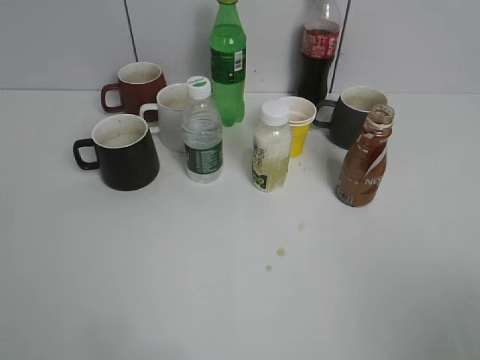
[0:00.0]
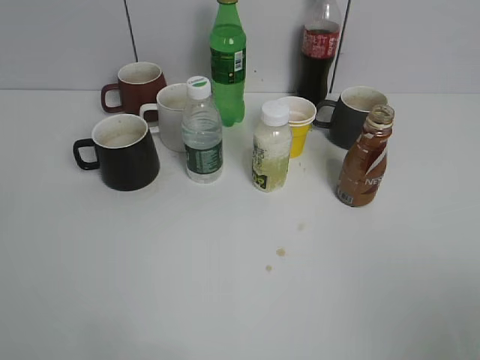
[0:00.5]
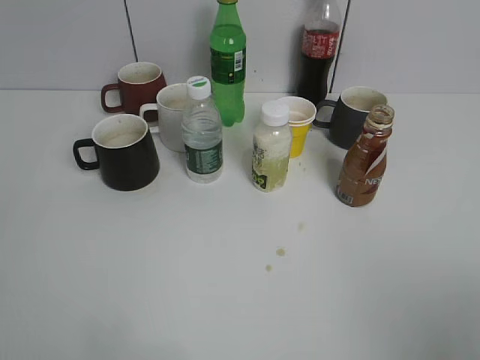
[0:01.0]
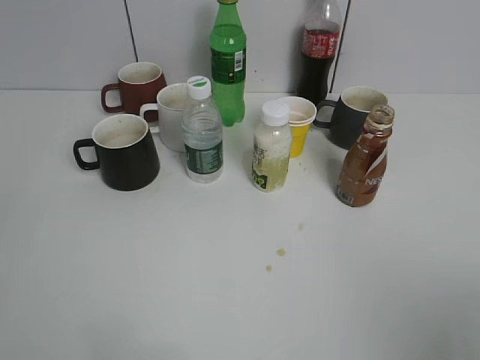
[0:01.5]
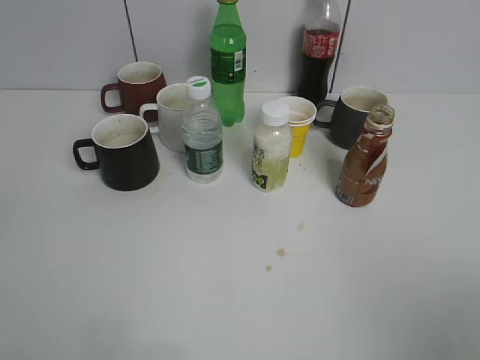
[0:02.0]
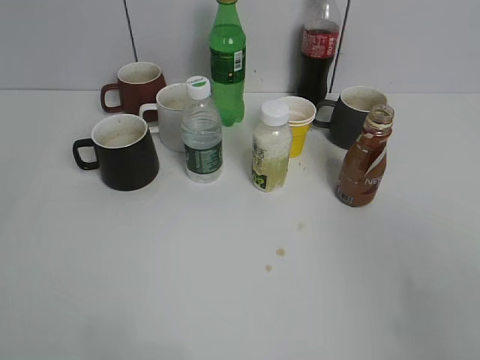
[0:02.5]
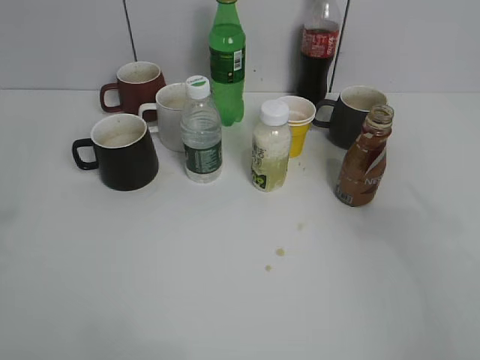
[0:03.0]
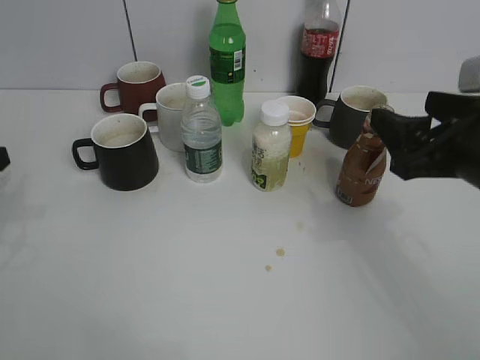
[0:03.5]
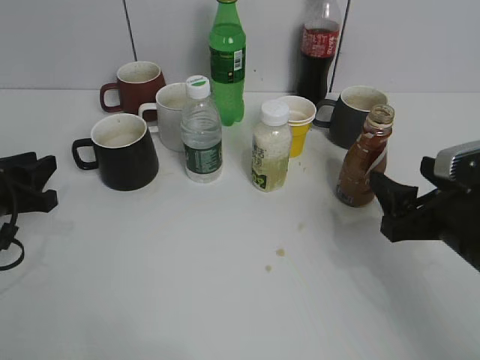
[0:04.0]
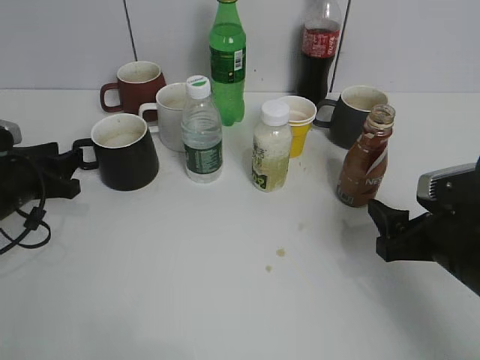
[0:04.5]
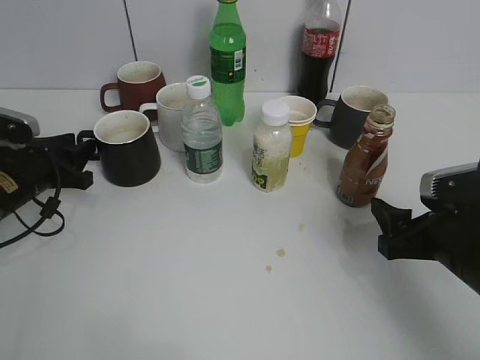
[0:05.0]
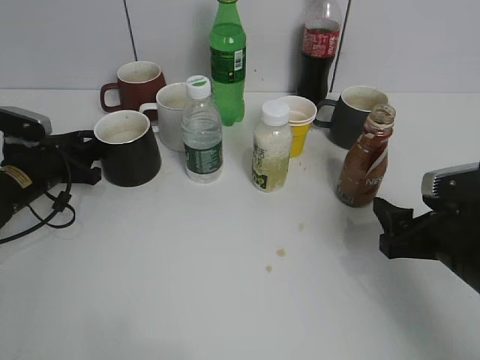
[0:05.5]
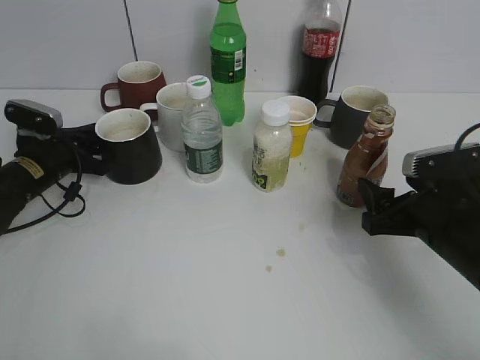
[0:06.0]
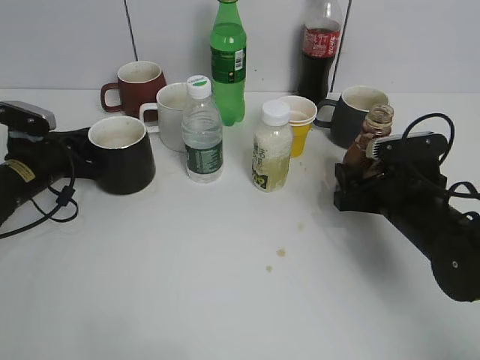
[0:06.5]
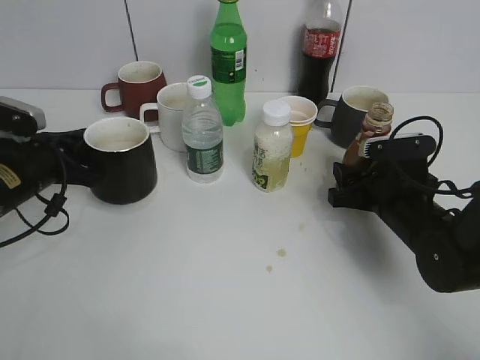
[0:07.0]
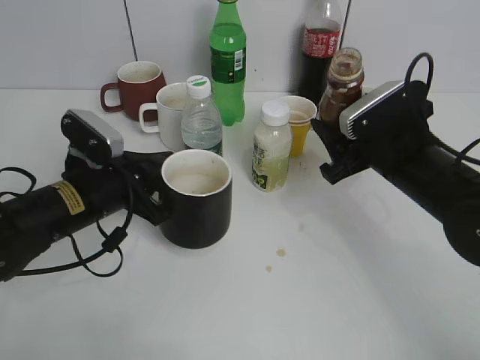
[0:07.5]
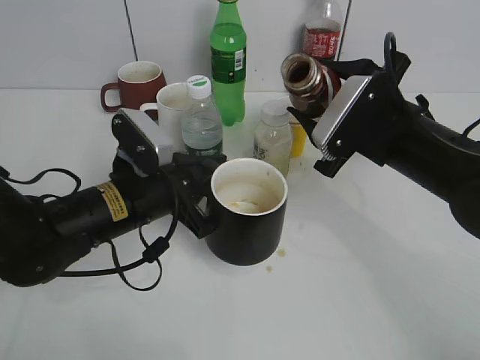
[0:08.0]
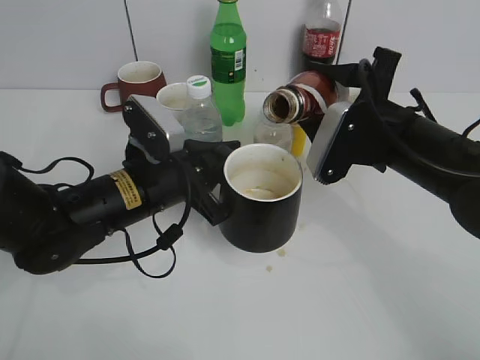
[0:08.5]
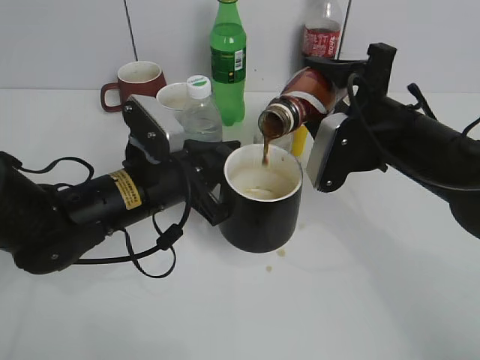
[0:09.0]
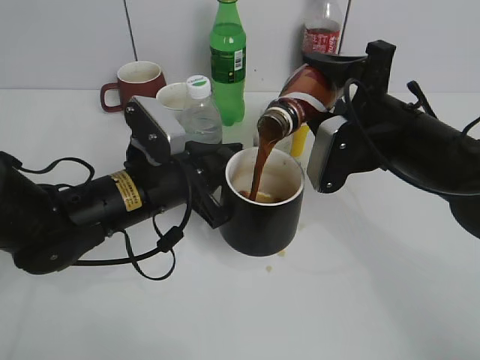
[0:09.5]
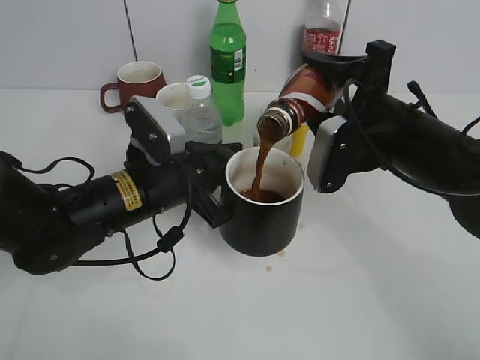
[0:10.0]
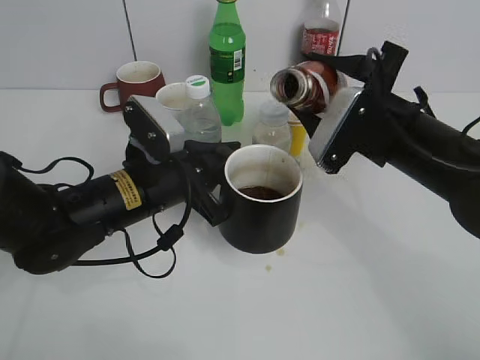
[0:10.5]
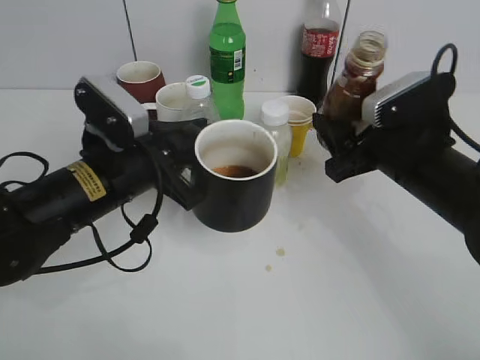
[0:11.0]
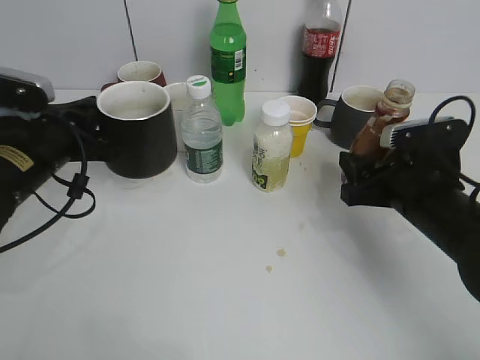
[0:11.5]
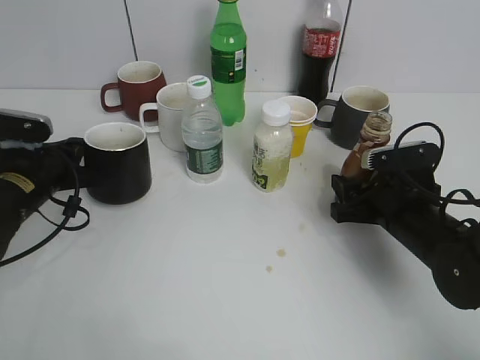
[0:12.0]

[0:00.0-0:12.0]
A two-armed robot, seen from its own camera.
Step, 0:01.5 to 0:05.5: Grasp the black cup with left gripper.
Step, 0:06.5 to 0:07.0: Lift the black cup with left gripper.
Step, 0:07.5 to 0:10.5: Pour the coffee from bottle to cup with right gripper.
0:02.0 to 0:04.0: The two grippers go some 30 cm forward and downward.
0:04.0 to 0:06.0: The left gripper heads forward and downward, covering some 15 cm, and closes up.
0:06.0 to 0:08.0: The left gripper moves to the right and backward, some 20 cm; the right gripper is displaced upward, to the left and forward by roughly 10 cm, and closes up.
0:10.0 to 0:12.0: The left gripper shifts approximately 15 cm to the left. Meanwhile the right gripper heads downward, covering some 10 cm.

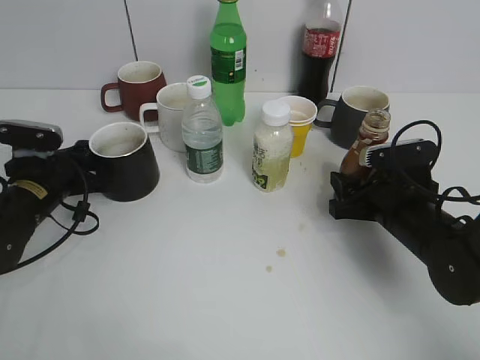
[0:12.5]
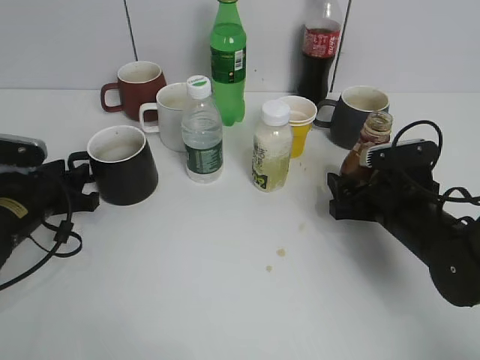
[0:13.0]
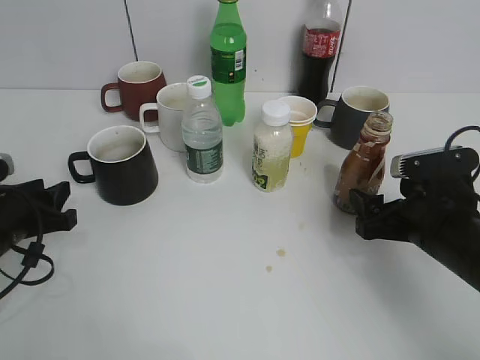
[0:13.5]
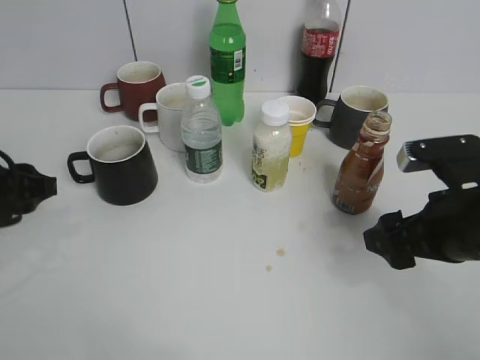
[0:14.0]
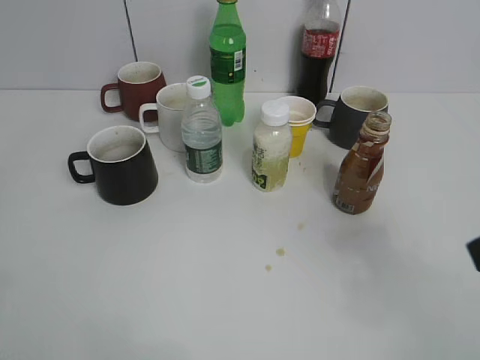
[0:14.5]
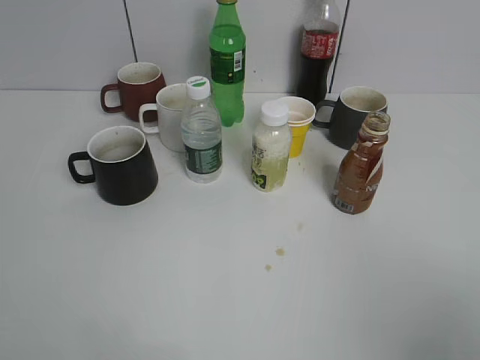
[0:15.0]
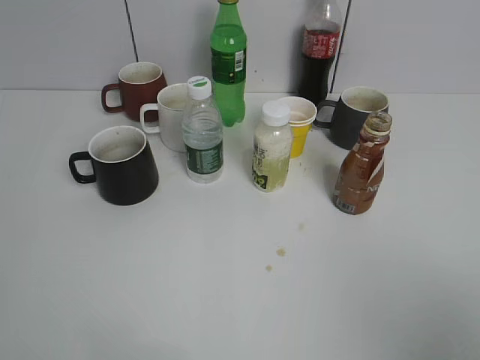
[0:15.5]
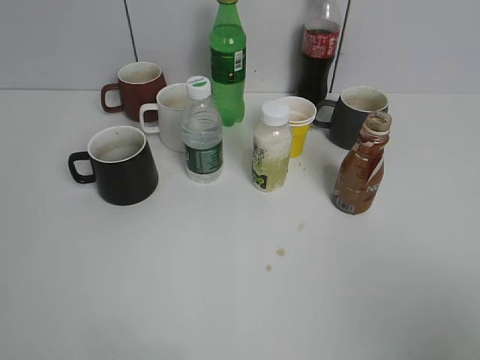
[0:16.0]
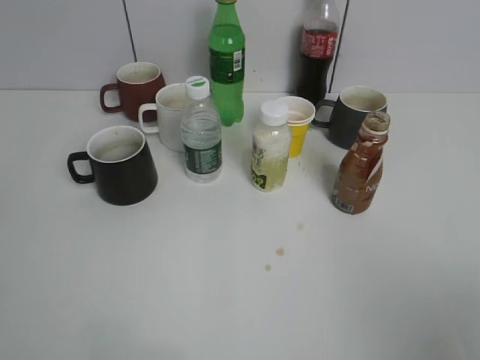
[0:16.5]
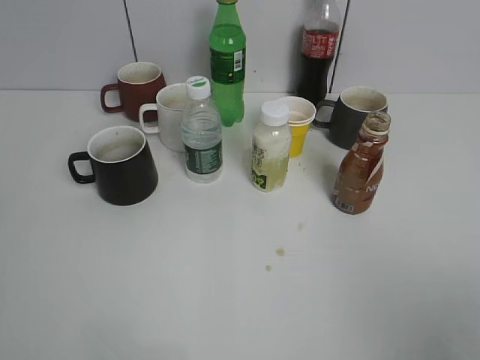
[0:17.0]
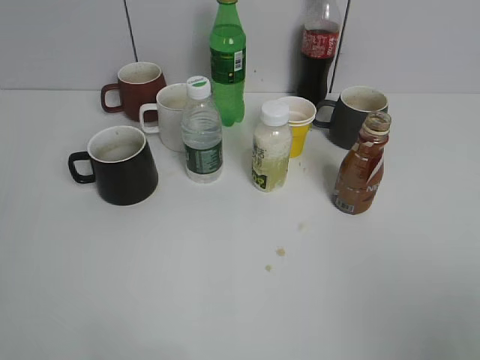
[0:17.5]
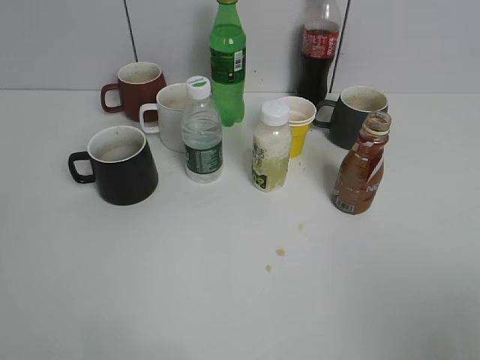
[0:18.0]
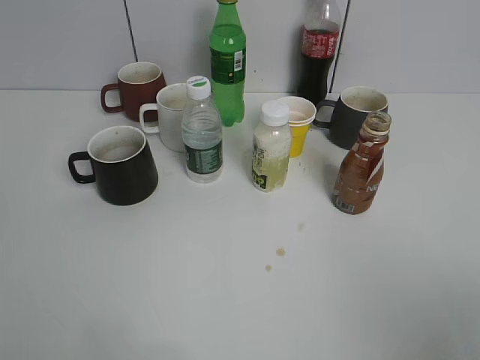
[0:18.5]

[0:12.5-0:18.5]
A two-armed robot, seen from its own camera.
0:12.5 to 0:14.5: Both grippers move upward and backward, about 30 cm. The left gripper opens up; the right gripper opens.
0:14.5 to 0:16.5: The right gripper is displaced backward and to the right by about 15 cm.
0:16.5 to 0:18.5: Both grippers stay about where they are.

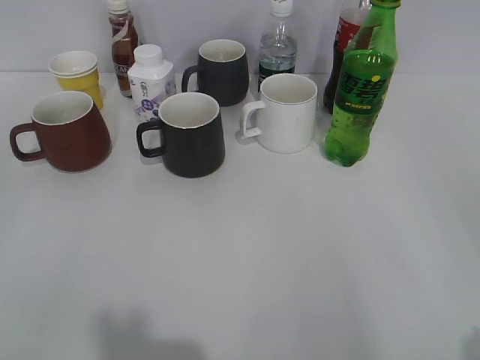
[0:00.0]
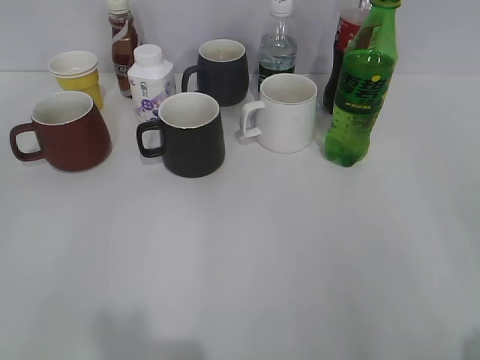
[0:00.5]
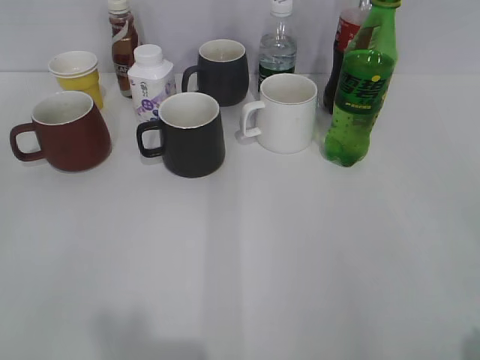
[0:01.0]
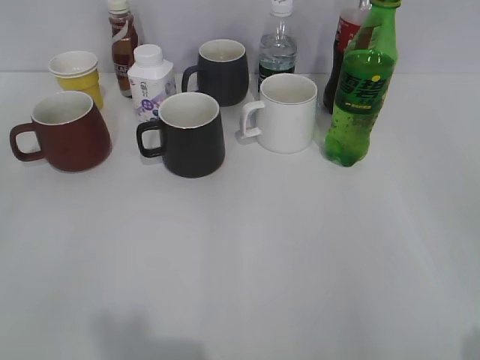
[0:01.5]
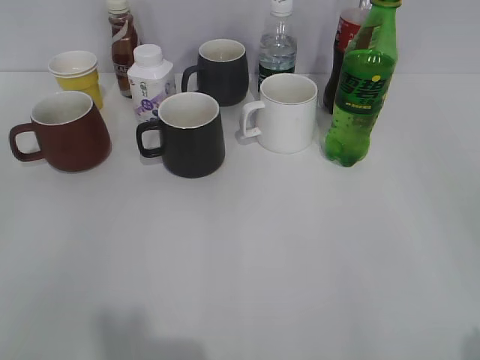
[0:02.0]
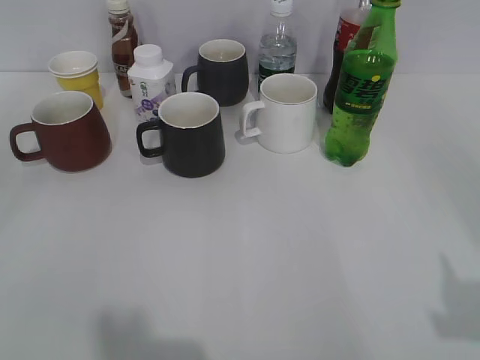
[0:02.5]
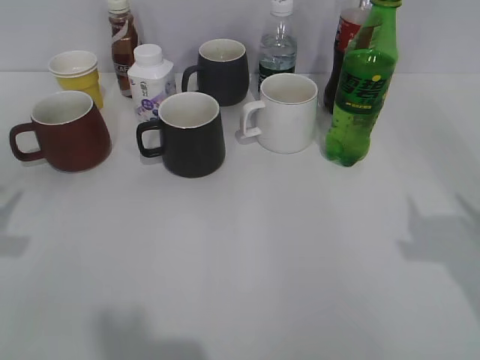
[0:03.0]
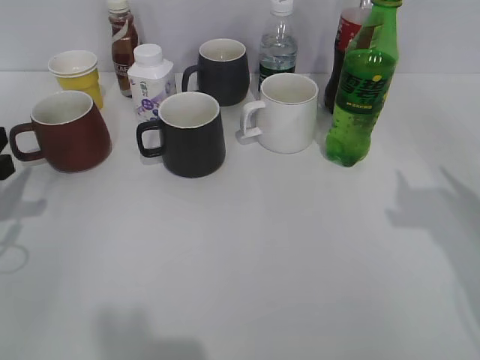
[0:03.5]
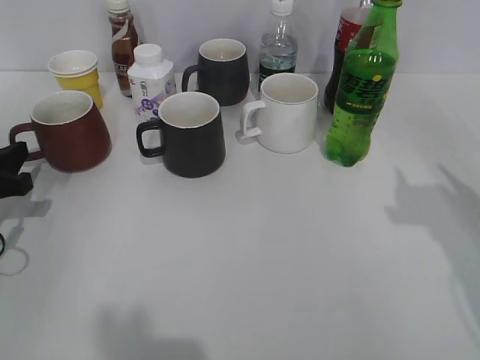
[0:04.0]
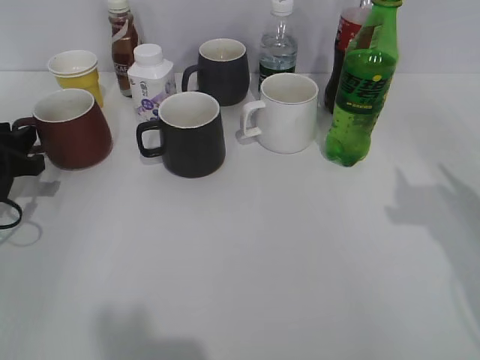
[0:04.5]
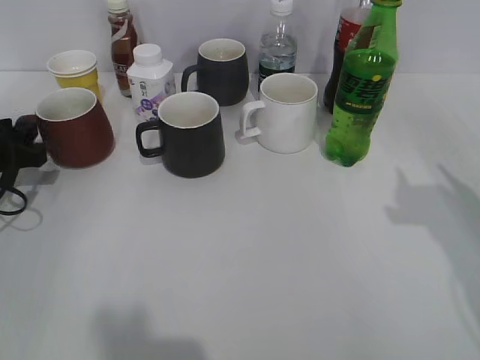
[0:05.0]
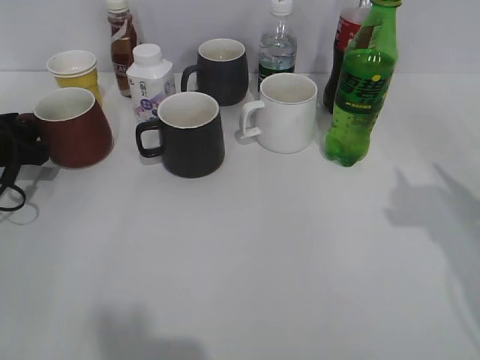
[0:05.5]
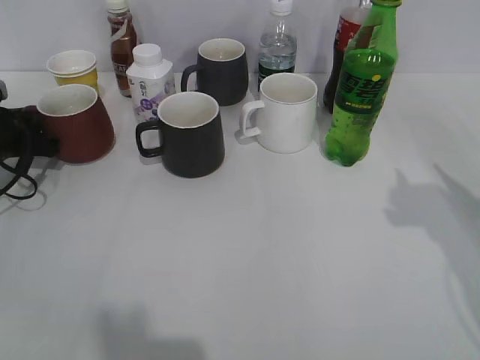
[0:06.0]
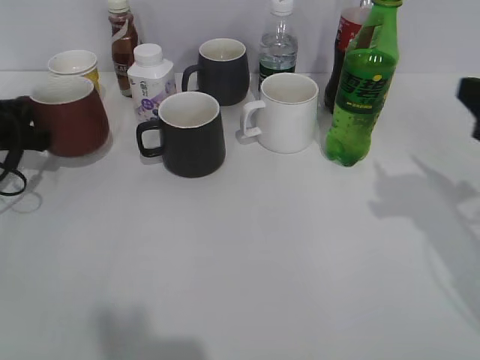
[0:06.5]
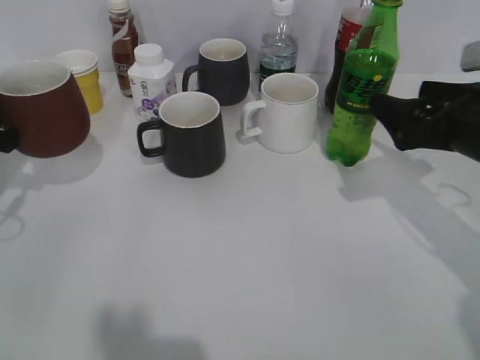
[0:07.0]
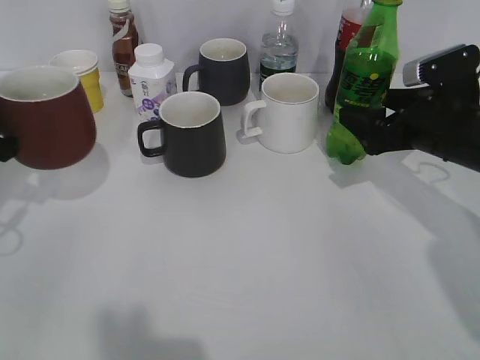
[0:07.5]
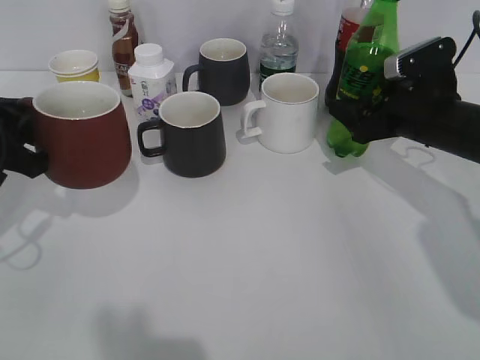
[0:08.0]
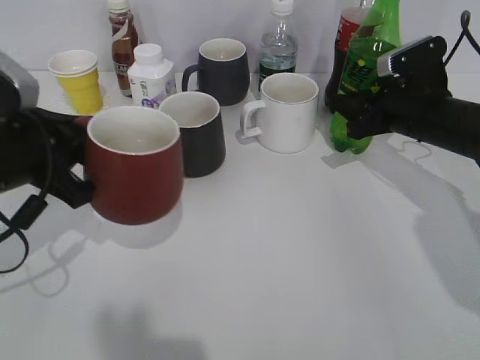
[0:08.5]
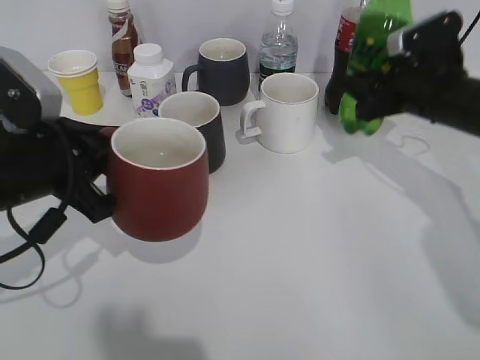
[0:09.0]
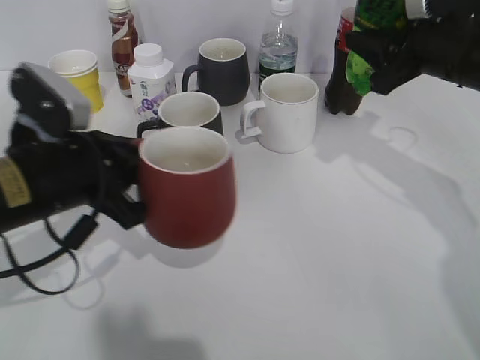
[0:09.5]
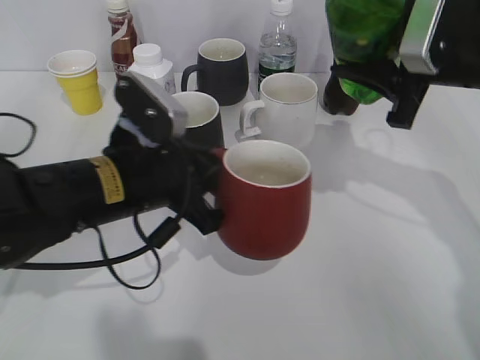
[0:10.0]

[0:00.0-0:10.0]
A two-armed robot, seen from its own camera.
Step, 0:02.0 to 0:03.5: Grasp the red cup with left gripper.
Step, 0:04.0 to 0:06.0: Lift the red cup with left gripper.
Step, 0:06.5 to 0:08.5: Grasp the bottle with sprite with right gripper.
0:02.0 to 0:04.0: The left gripper is displaced forward and downward by some 30 cm.
0:04.0 to 0:06.0: The left gripper travels forward by roughly 10 cm, and closes its fingers.
0:06.0 to 0:08.0: The left gripper shifts approximately 15 cm backward, upward and to the right. The right gripper goes approximately 20 cm forward and downward, and opens up.
0:08.0 to 0:10.0: The right gripper heads upward, covering some 10 cm, and closes up; the left gripper travels to the right by roughly 15 cm.
